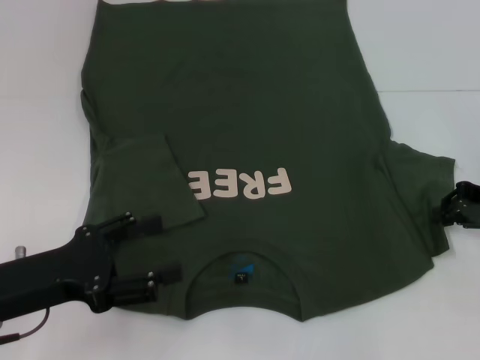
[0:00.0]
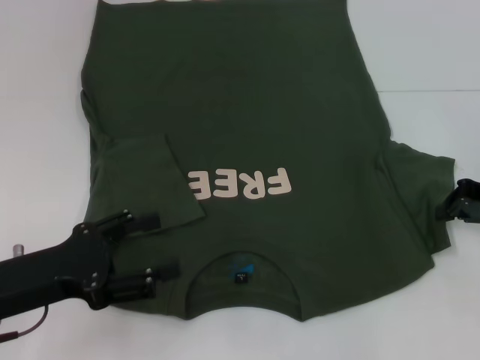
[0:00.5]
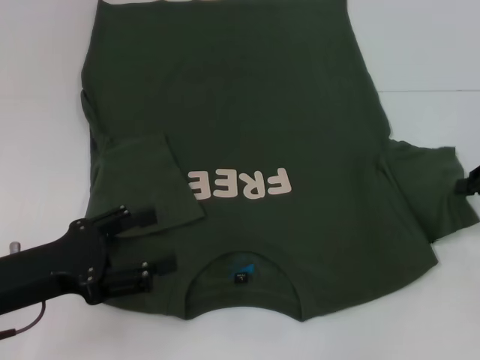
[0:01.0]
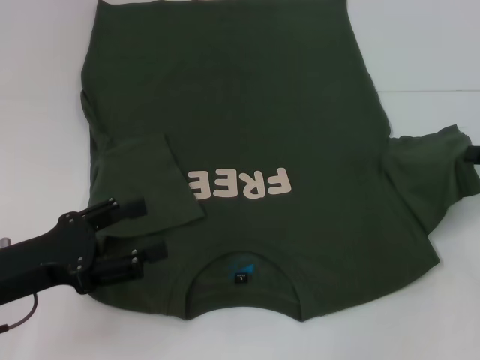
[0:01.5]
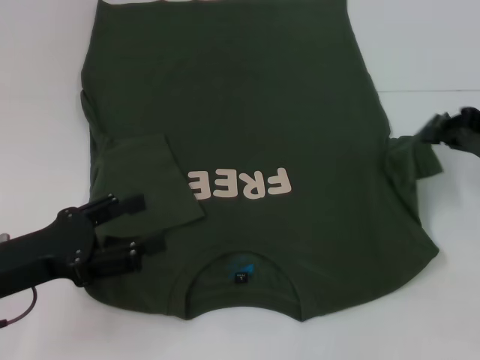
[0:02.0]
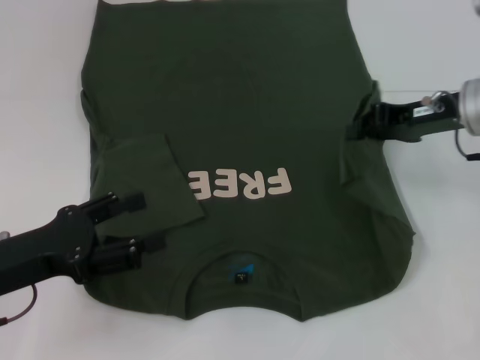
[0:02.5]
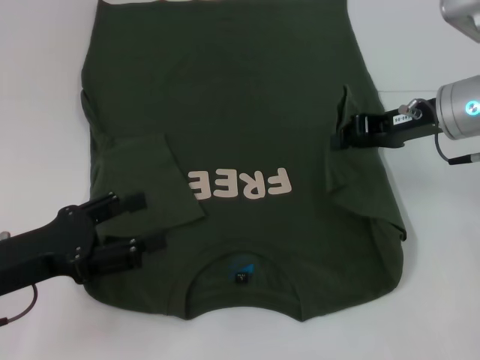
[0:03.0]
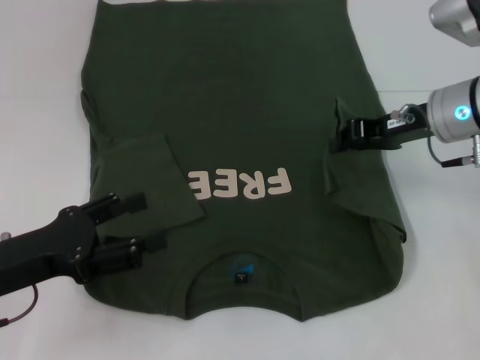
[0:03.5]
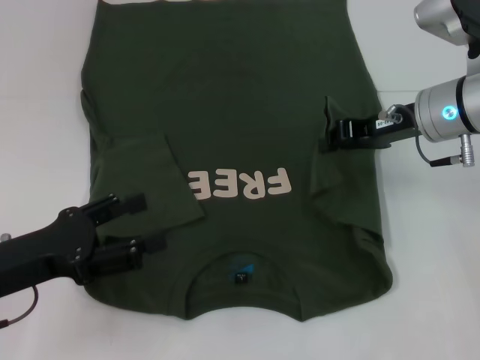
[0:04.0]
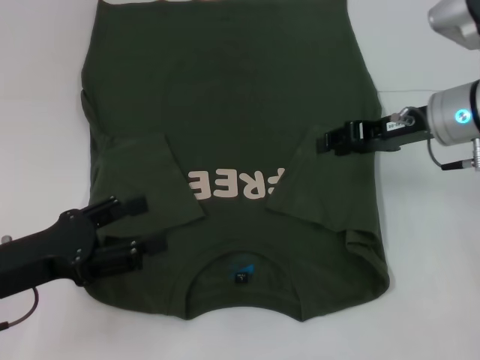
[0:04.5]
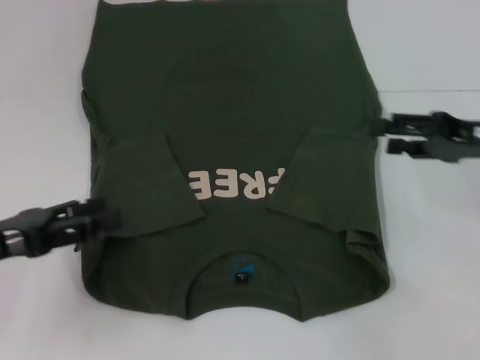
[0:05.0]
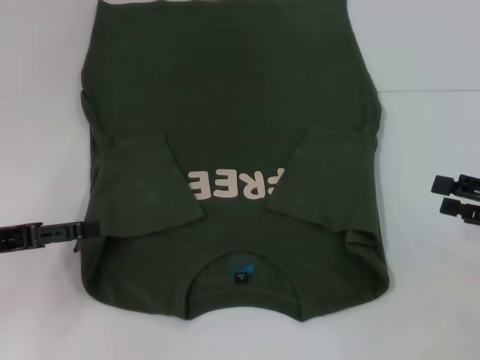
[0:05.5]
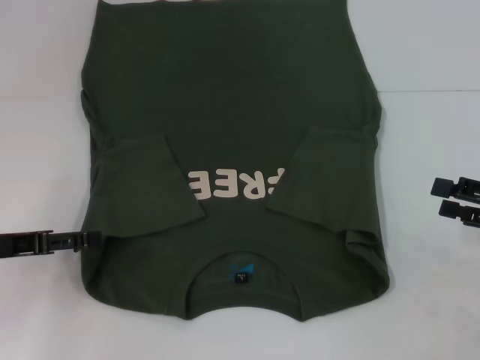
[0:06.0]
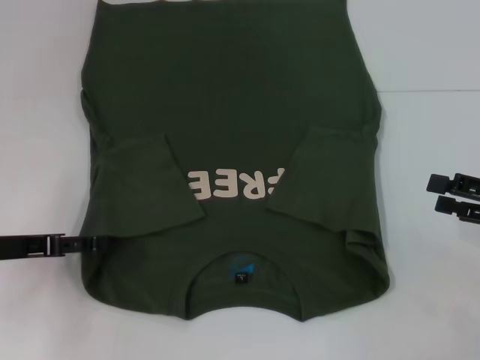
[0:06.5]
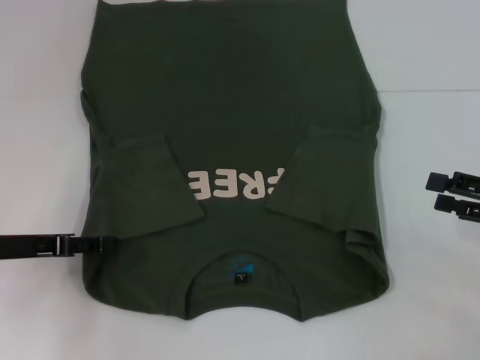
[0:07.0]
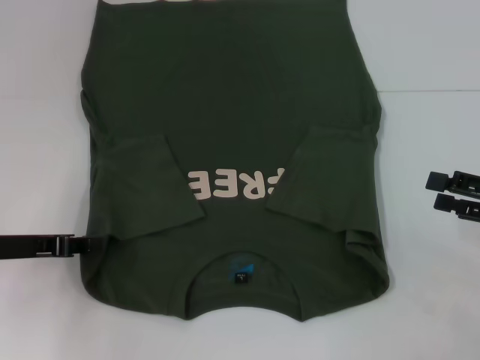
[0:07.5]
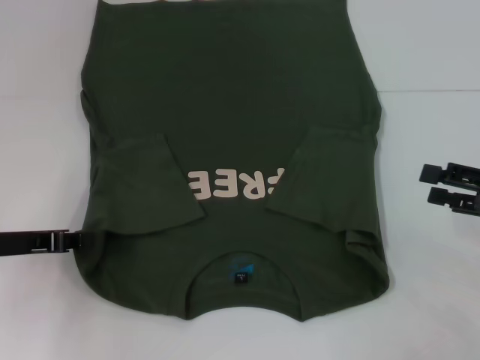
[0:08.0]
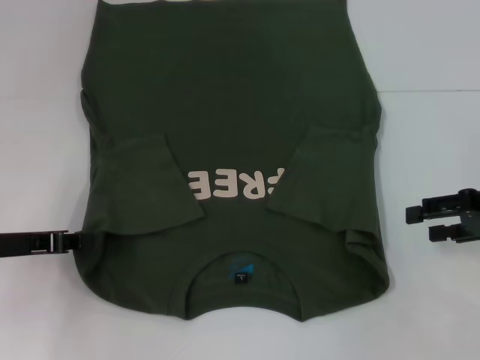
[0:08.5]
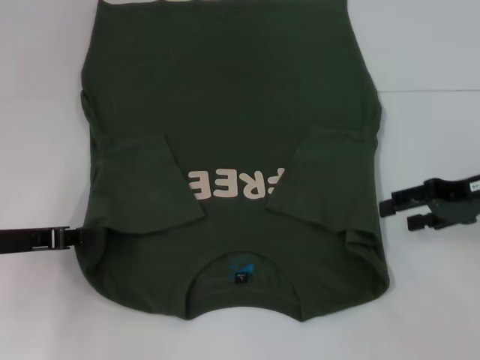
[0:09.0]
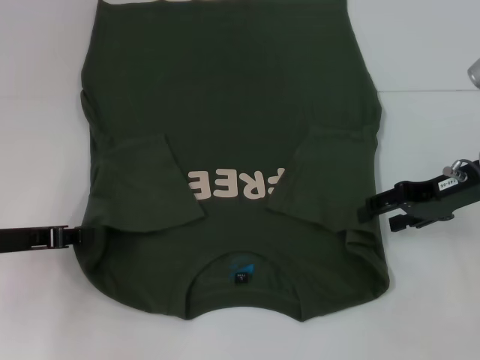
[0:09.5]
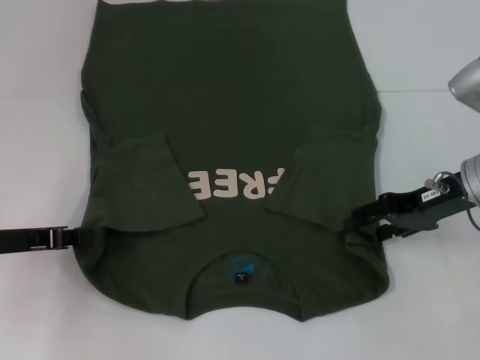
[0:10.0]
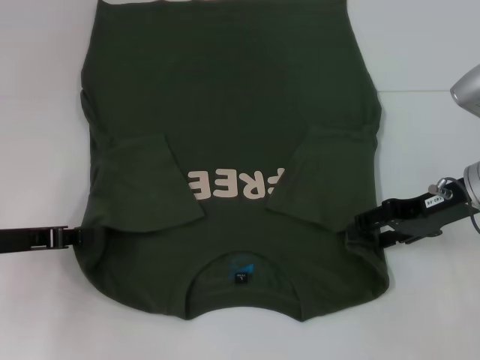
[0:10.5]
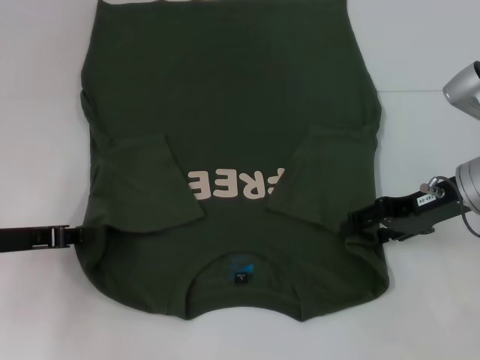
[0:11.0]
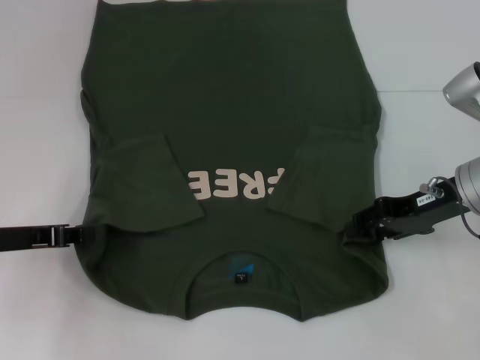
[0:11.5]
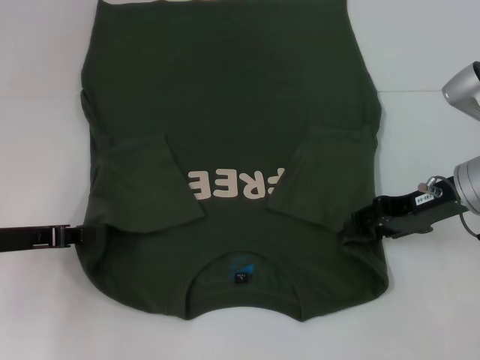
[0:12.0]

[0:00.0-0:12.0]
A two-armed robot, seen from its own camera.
Step, 0.0 to 5.0 s: Fold the bottom right sleeve with your right hand.
Step, 5.5 to 8.0 s: Grab the bottom left corner with your left hand.
0.0 to 2.0 s: The right gripper closes.
2.0 to 4.0 s: The right gripper shifts about 10 cm to the left.
4.0 to 6.0 s: The right gripper goes some 20 cm to the right and backward, and opens up. Meanwhile the left gripper moves to the left and forward, about 5 cm.
6.0 to 8.0 s: The left gripper closes.
8.0 to 10.0 s: The right gripper is displaced to the left and forward by some 15 cm.
10.0 to 12.0 s: Both grippers stay put.

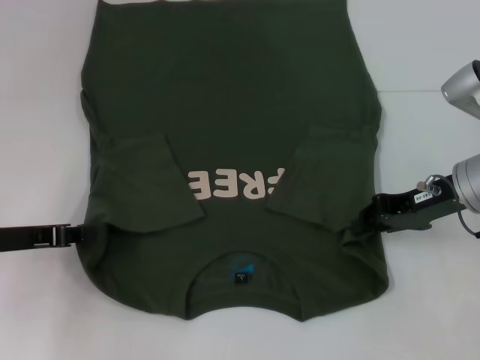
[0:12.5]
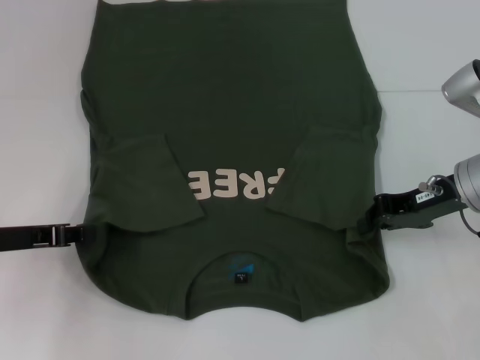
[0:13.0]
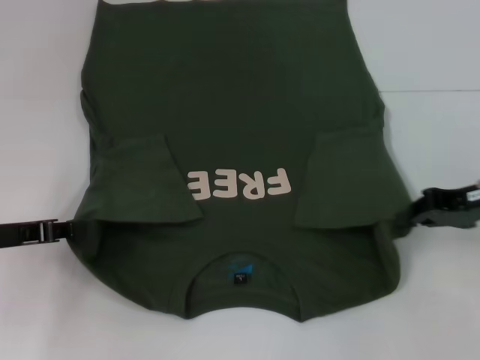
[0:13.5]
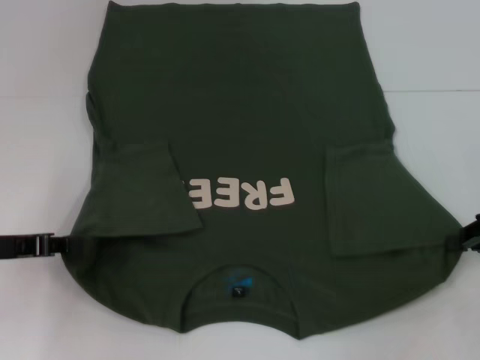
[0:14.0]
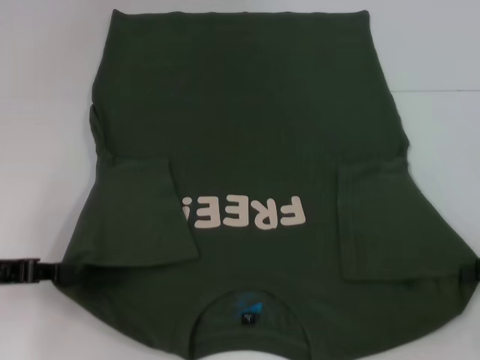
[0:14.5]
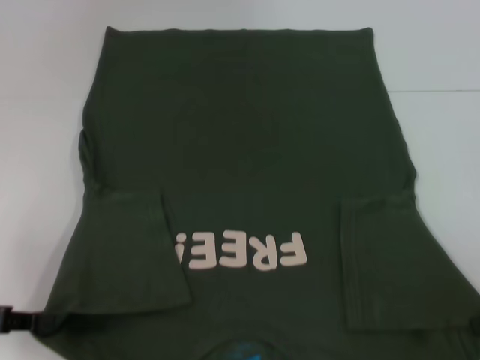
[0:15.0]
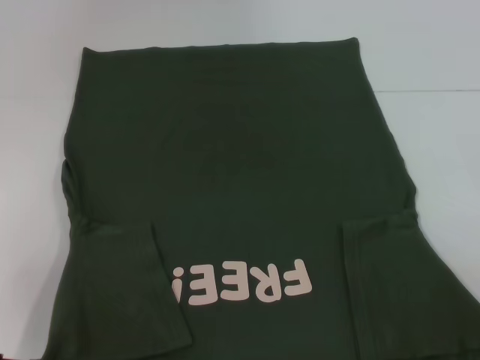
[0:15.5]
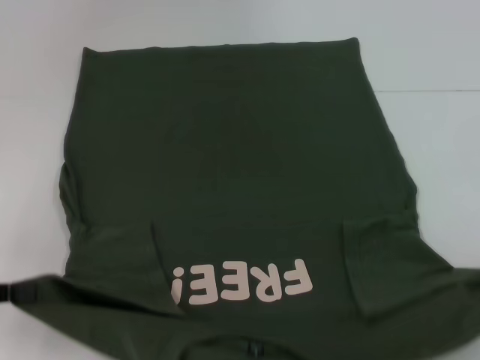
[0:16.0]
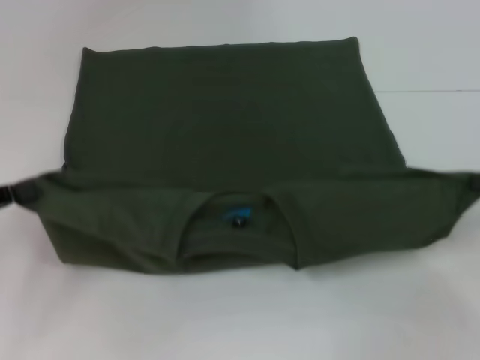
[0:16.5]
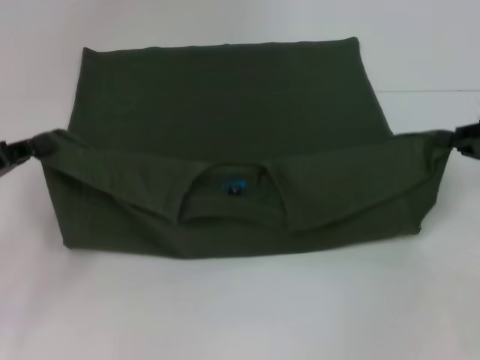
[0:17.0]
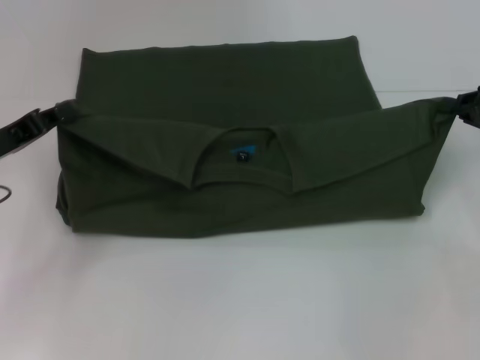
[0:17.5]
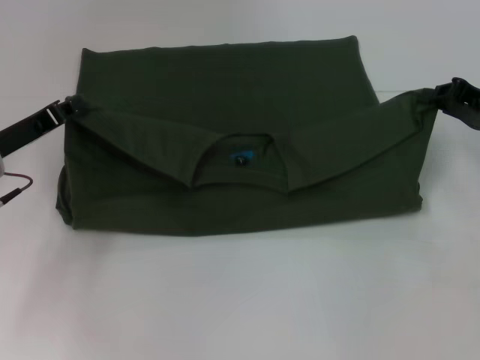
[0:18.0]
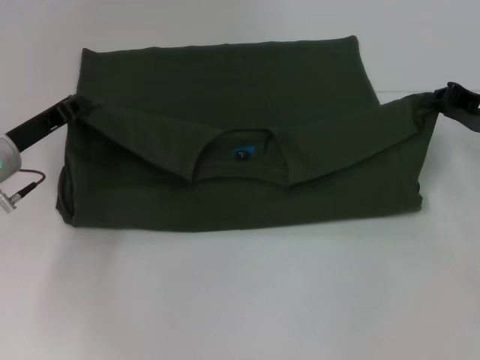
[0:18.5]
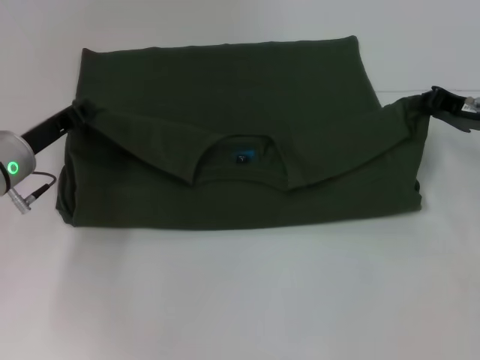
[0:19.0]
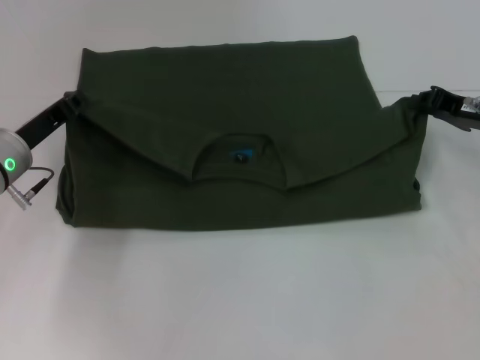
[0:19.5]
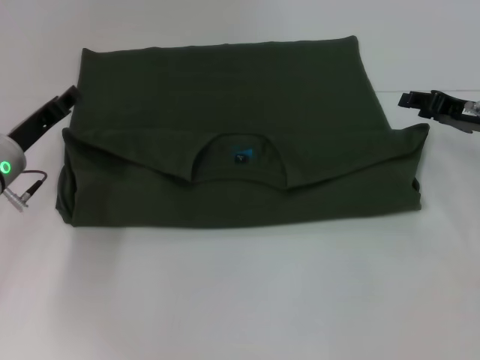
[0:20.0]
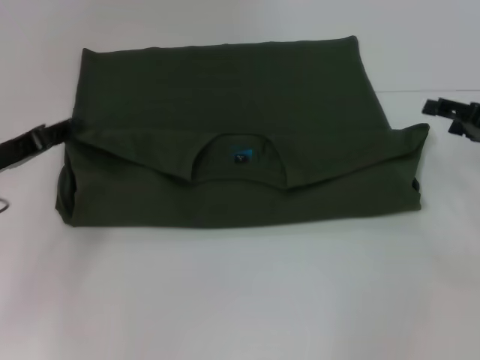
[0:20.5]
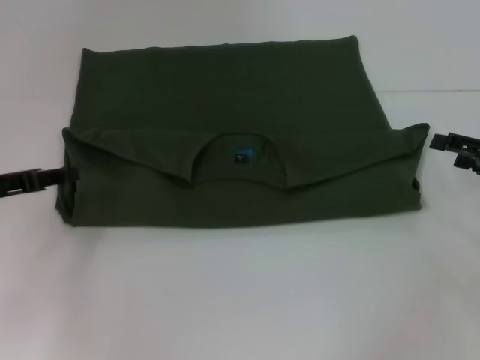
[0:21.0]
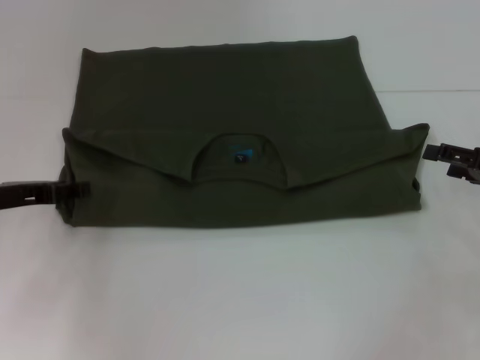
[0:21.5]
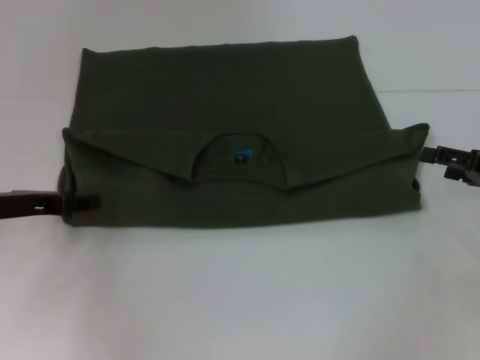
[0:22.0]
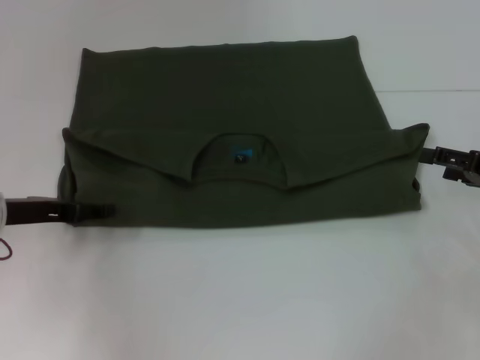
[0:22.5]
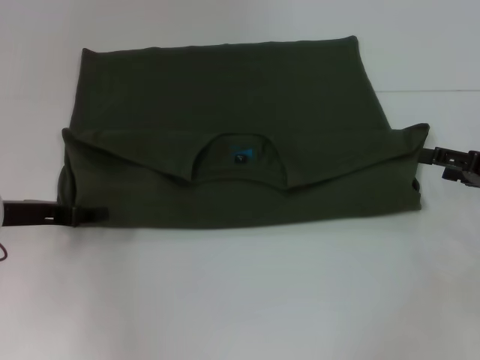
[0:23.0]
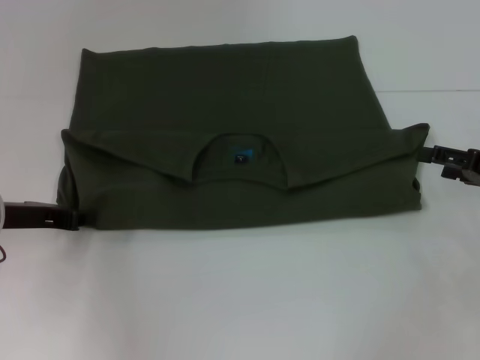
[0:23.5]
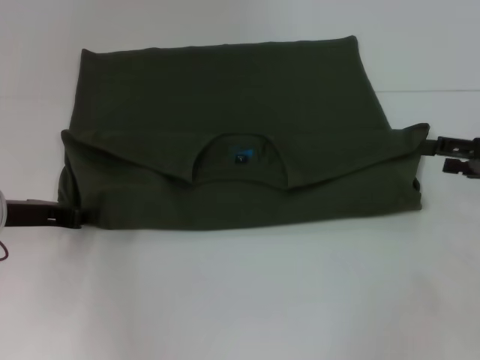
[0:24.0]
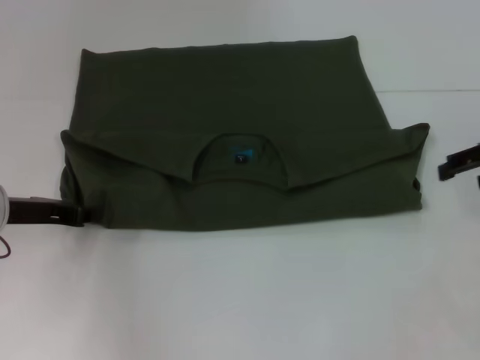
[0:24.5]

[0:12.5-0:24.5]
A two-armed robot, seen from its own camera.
Step, 14.0 to 20.0 s: Fold the clothes with your left hand.
Step, 14.0 to 20.0 s: Fold the clothes with your right hand.
12.5 to 14.5 s: The right gripper shifts approximately 15 cm to the right and backward.
16.5 to 18.5 s: The left gripper shifts some 15 cm forward and to the right; the right gripper shifts some 10 cm forward and to the left.
18.5 to 20.5 s: The left gripper opens up. Meanwhile the right gripper opens.
22.5 to 24.5 s: The right gripper moves upward, some 10 cm; the left gripper closes up.

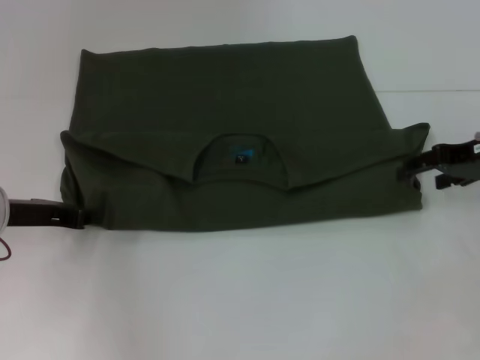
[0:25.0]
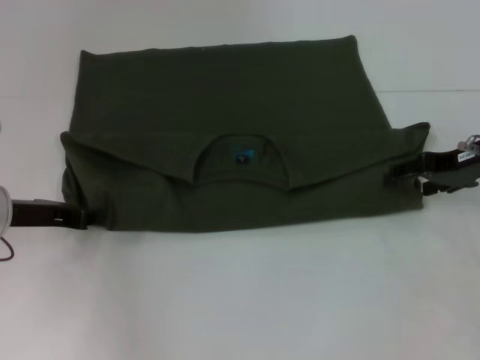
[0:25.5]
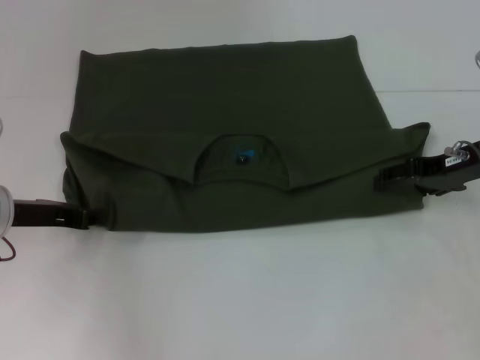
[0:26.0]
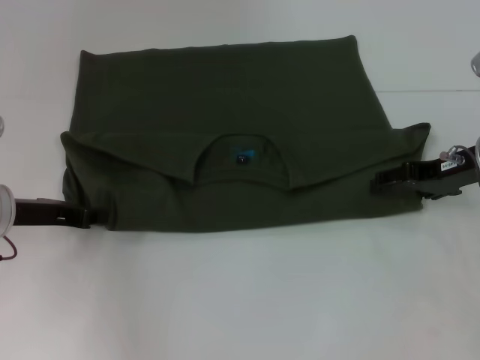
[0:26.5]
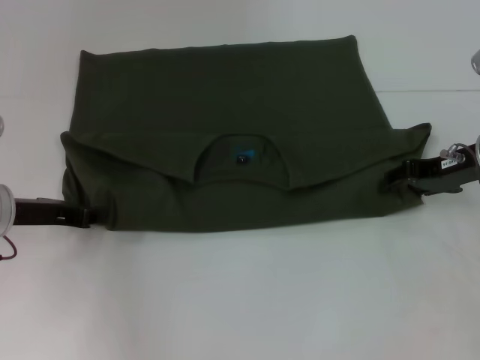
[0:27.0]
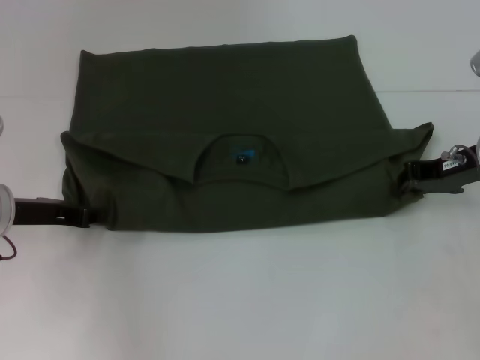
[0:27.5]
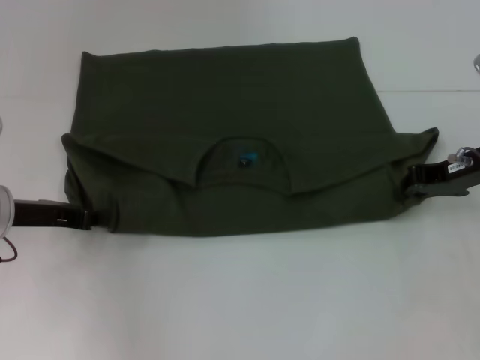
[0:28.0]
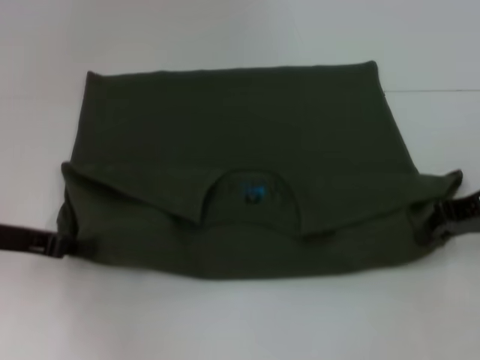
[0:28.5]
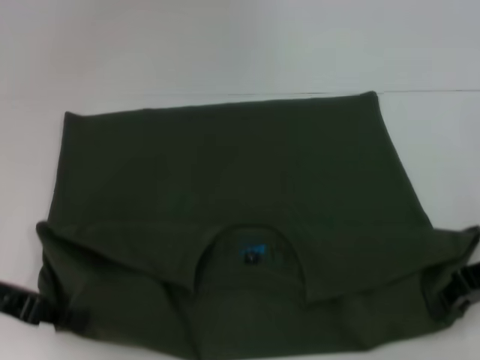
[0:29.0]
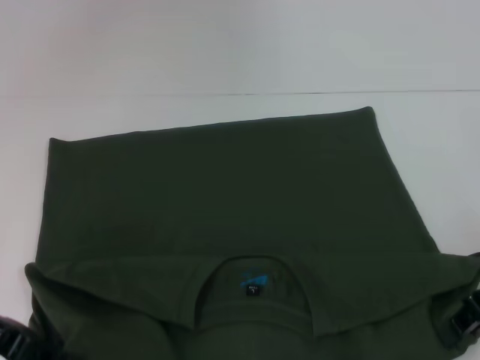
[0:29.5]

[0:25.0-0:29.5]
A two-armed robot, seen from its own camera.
25.0 to 27.0 s: The grippers stay close to where they were, moving slightly.
27.0 to 29.5 s: The grippers both shift backward by some 10 cm. The right gripper closes.
